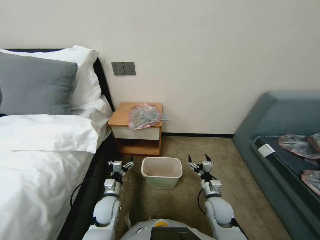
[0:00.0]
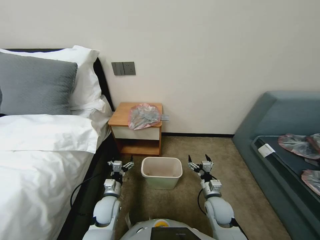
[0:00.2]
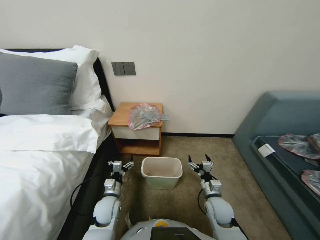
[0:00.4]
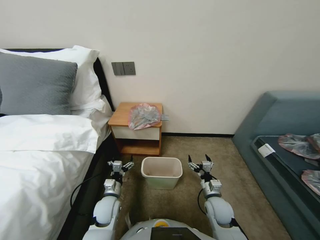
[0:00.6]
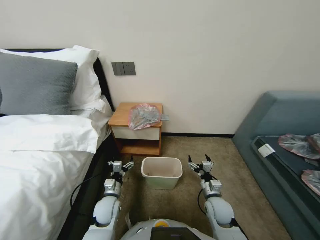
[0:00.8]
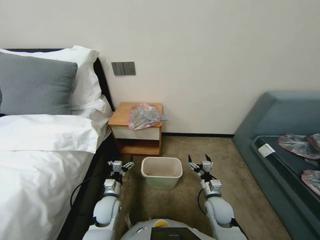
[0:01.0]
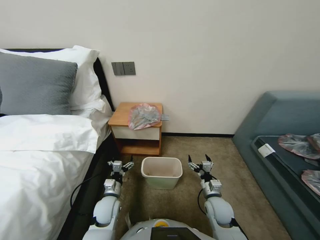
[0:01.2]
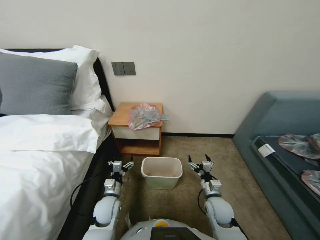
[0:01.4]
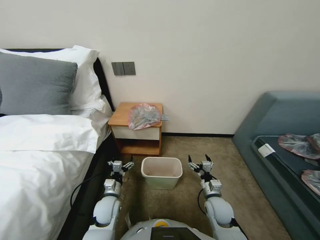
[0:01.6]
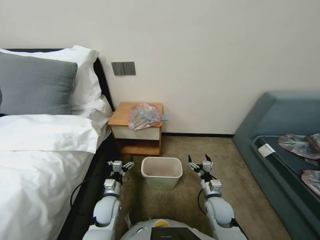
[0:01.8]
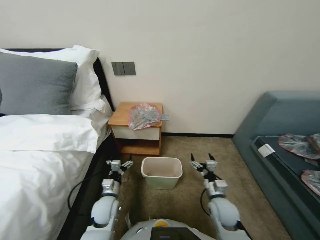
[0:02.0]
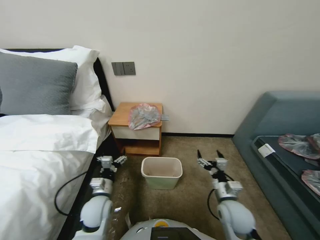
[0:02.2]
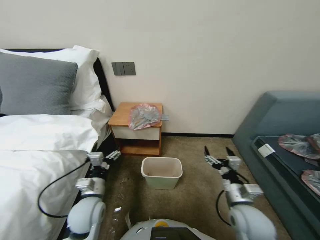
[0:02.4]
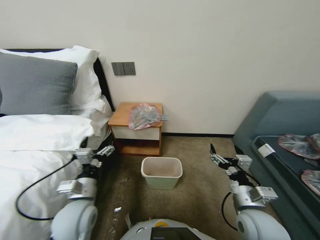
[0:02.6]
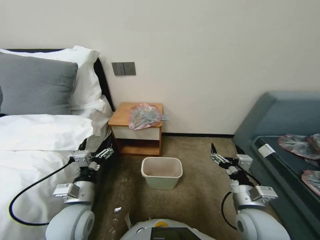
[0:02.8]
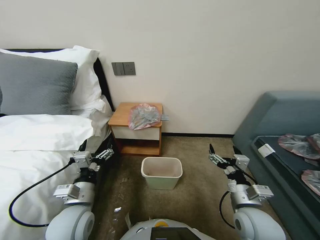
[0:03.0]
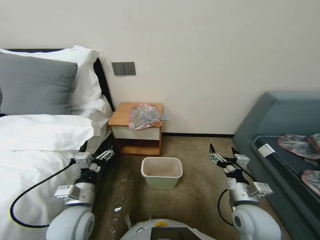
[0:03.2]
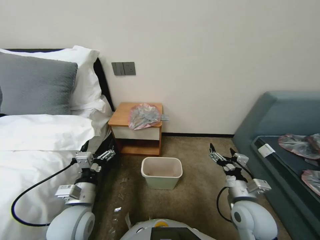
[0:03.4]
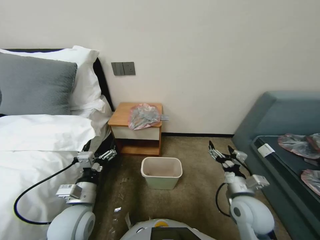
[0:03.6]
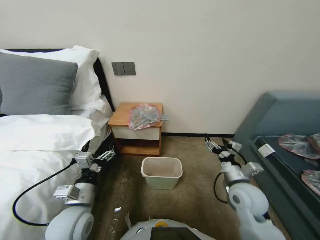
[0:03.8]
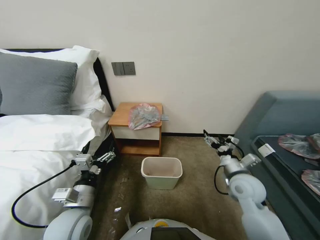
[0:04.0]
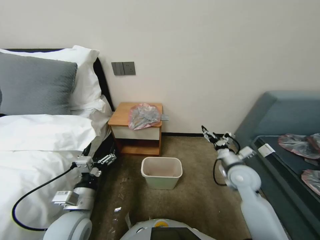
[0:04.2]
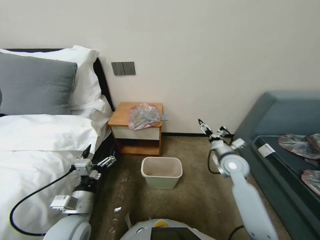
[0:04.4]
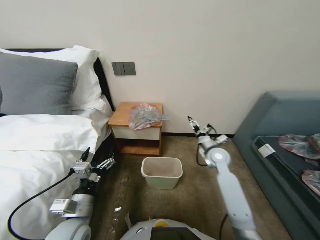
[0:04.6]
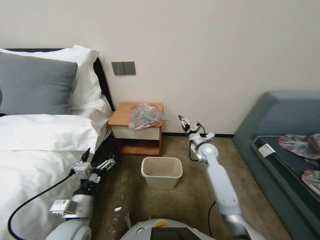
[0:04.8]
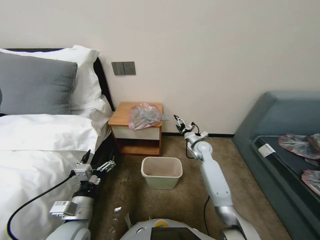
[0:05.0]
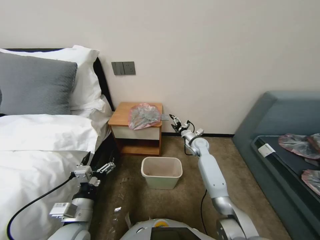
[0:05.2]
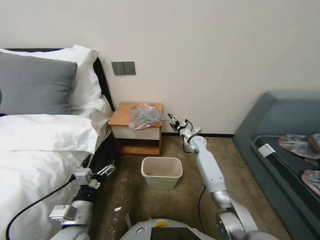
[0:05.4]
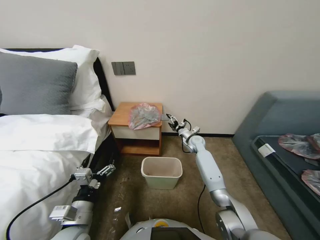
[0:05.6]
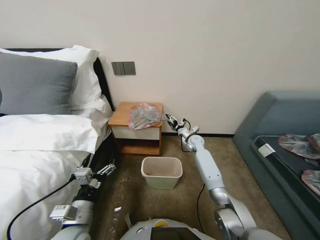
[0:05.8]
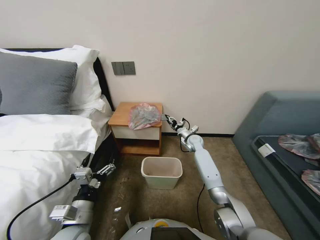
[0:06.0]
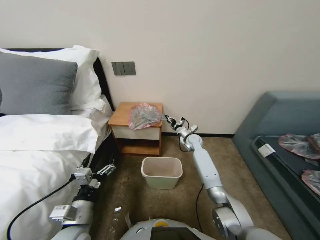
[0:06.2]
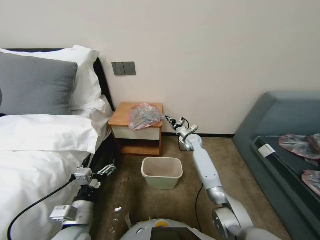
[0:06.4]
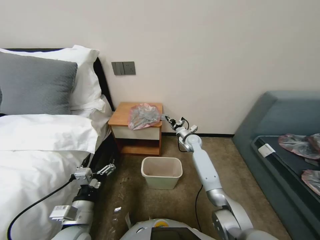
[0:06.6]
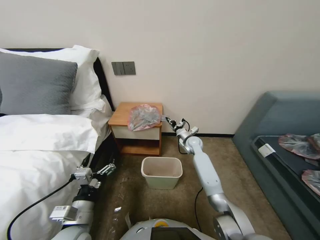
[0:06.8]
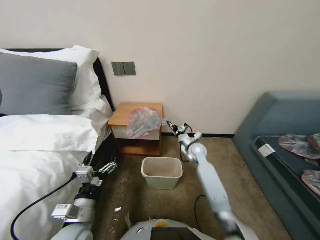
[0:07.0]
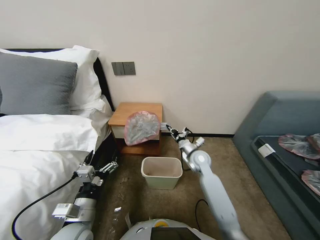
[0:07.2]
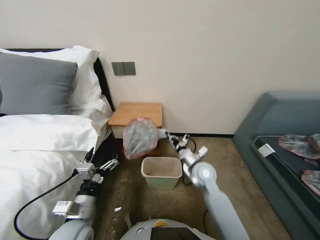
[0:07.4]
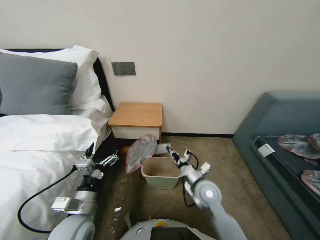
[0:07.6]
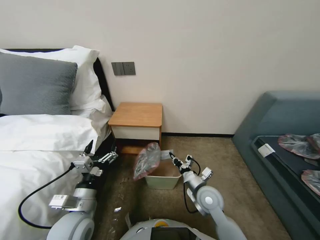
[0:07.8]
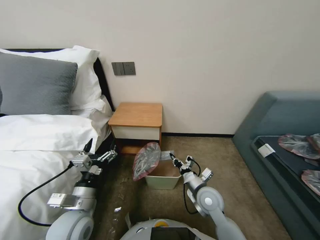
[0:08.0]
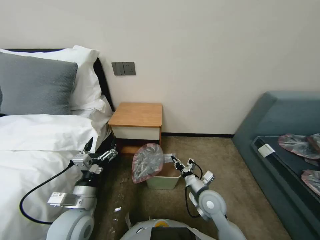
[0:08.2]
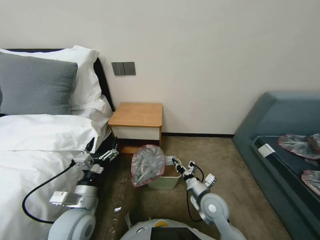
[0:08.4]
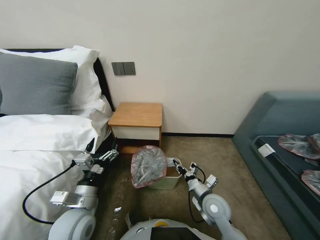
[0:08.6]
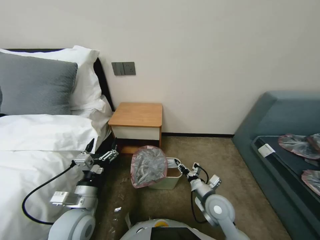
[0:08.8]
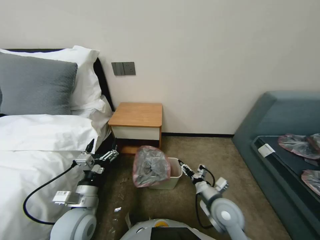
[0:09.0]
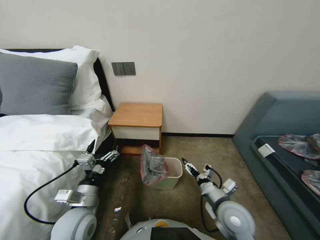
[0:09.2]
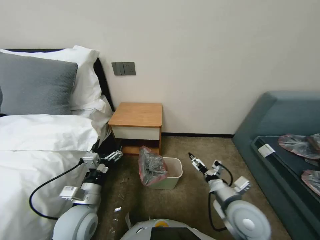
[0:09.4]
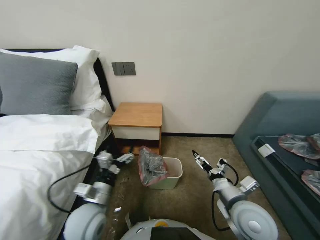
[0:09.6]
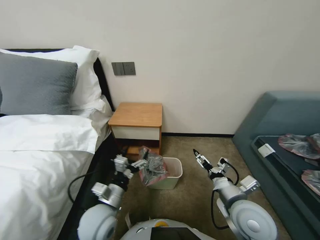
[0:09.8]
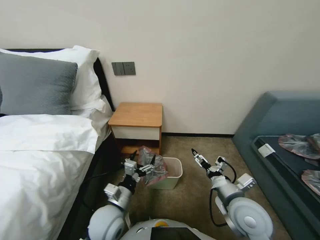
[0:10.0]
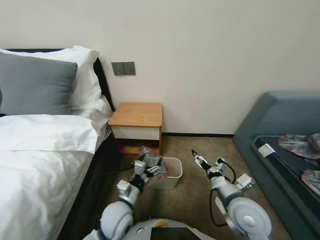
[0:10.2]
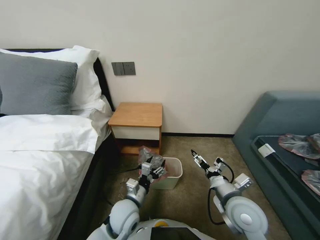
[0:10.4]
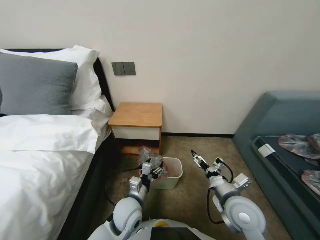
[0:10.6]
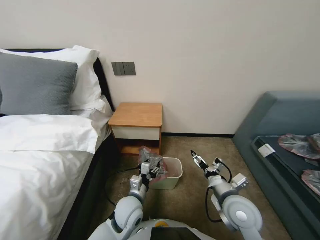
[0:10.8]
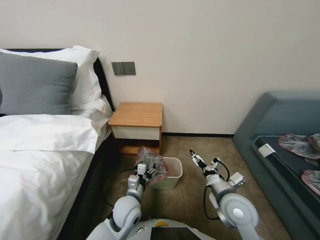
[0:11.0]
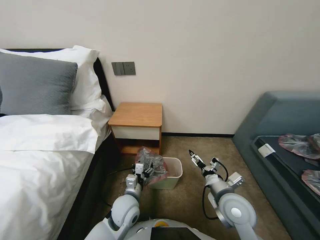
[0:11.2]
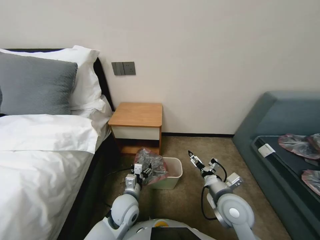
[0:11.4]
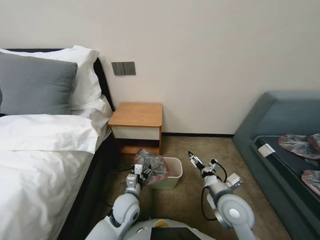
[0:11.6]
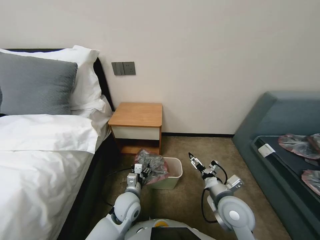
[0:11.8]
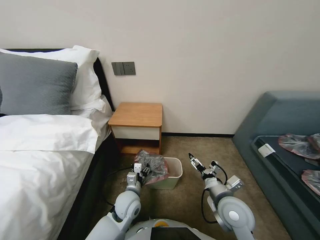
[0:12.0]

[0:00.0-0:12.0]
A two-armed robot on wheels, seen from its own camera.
Task of the whole recording: Pick up the garbage bag from the table and place it over the trash can.
0:01.6 to 0:03.0: The grippers both shift upward and backward by roughly 15 cm.
0:03.0 to 0:04.4: The right gripper moves forward, approximately 20 cm.
0:04.4 to 0:06.0: The right gripper heads forward and to the left, covering about 20 cm, and closes its fingers.
0:06.0 to 0:07.6: The right gripper heads backward, covering roughly 25 cm, and closes up.
0:07.6 to 0:09.0: The right gripper goes approximately 5 cm backward, and opens its fingers.
0:09.0 to 0:10.4: The right gripper is displaced upward by some 5 cm, and opens. Meanwhile the left gripper is displaced to the right and downward by about 15 cm.
0:10.4 to 0:12.0: The left gripper changes place by some 5 cm.

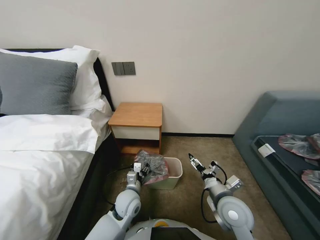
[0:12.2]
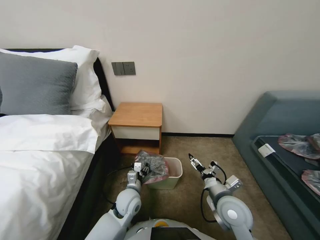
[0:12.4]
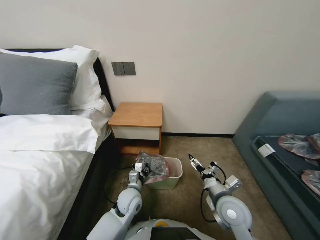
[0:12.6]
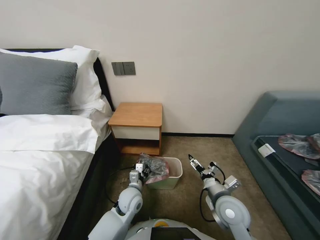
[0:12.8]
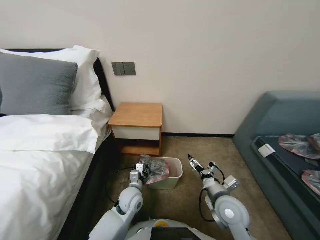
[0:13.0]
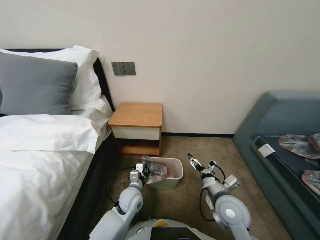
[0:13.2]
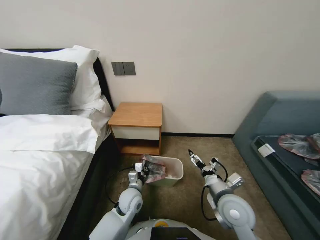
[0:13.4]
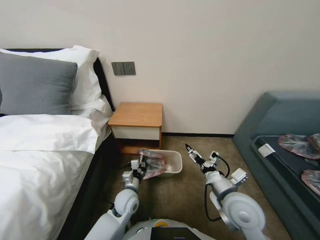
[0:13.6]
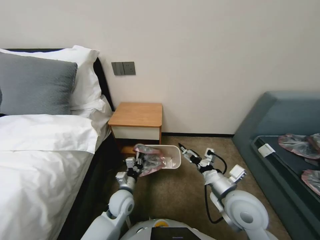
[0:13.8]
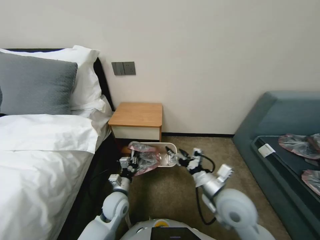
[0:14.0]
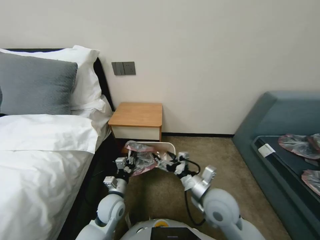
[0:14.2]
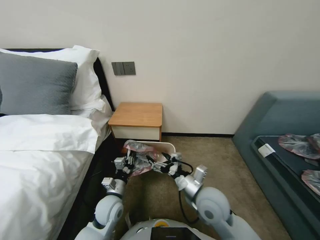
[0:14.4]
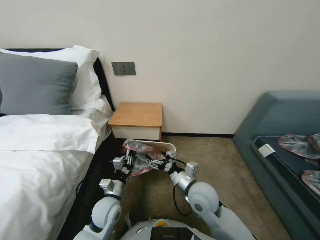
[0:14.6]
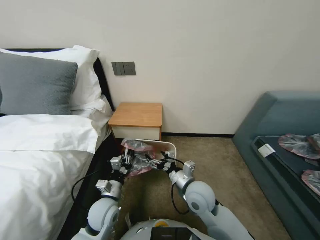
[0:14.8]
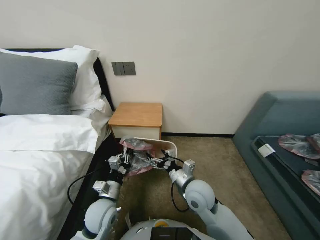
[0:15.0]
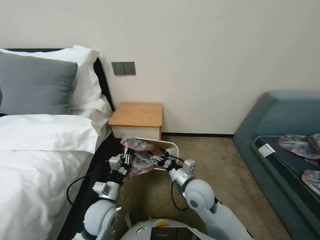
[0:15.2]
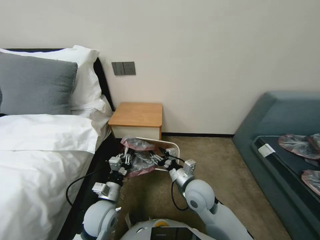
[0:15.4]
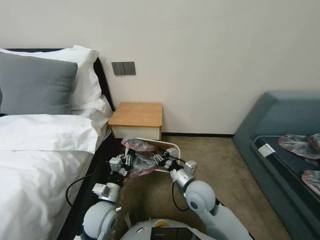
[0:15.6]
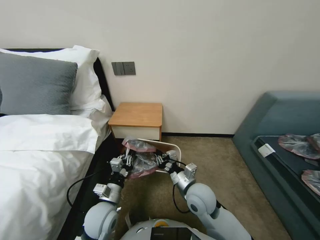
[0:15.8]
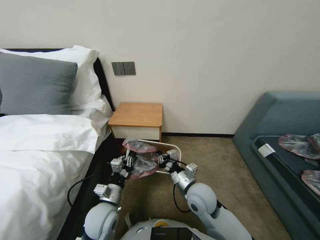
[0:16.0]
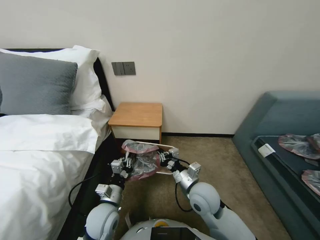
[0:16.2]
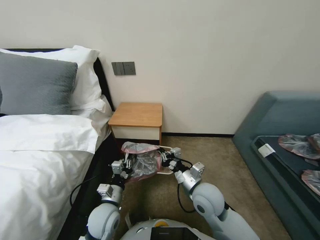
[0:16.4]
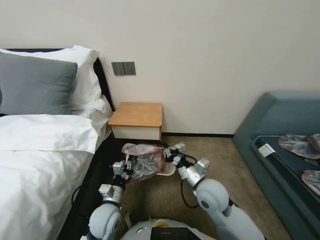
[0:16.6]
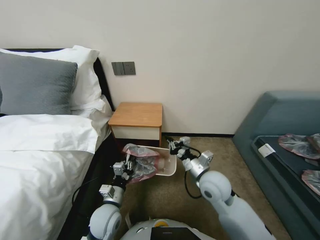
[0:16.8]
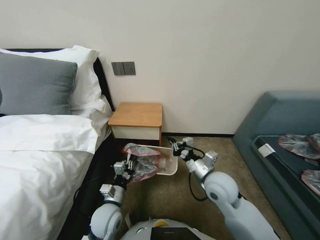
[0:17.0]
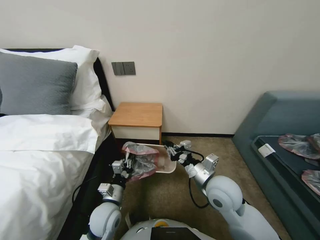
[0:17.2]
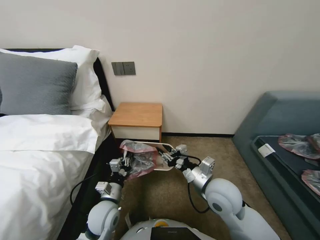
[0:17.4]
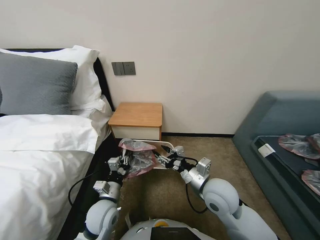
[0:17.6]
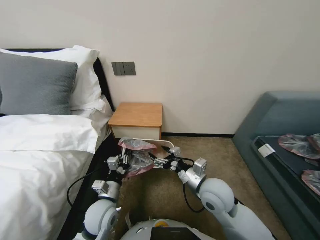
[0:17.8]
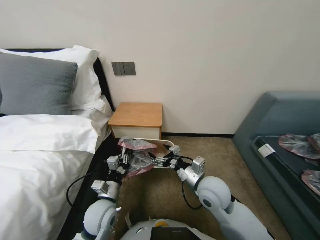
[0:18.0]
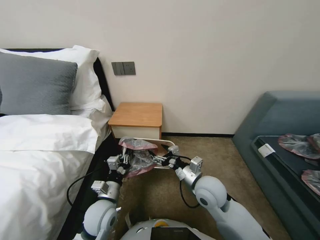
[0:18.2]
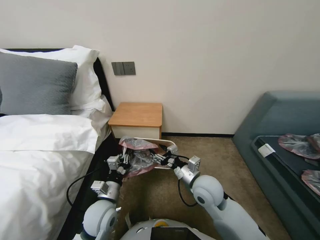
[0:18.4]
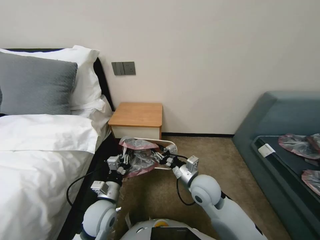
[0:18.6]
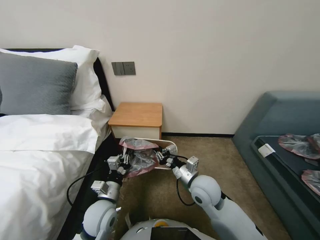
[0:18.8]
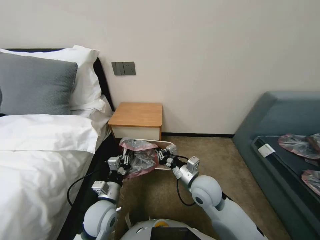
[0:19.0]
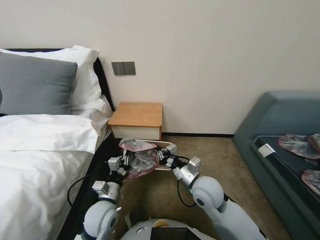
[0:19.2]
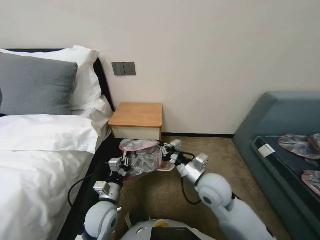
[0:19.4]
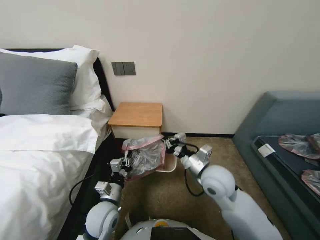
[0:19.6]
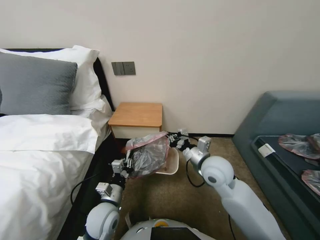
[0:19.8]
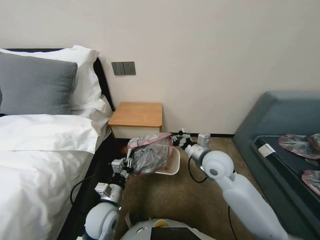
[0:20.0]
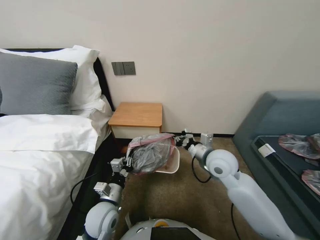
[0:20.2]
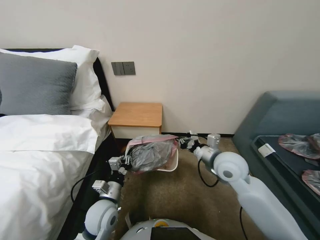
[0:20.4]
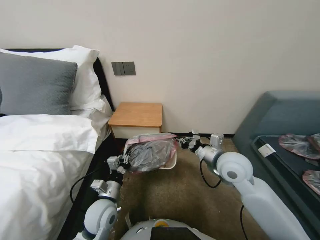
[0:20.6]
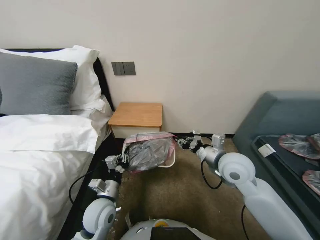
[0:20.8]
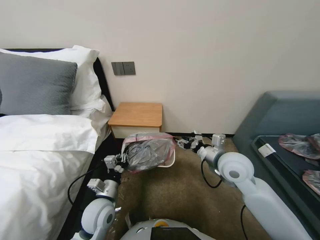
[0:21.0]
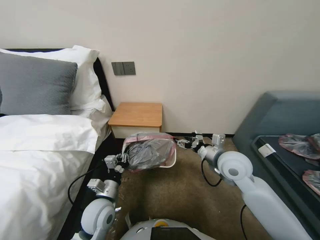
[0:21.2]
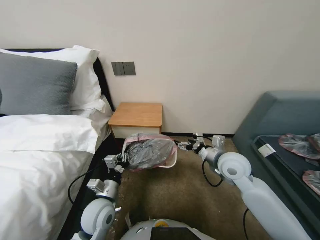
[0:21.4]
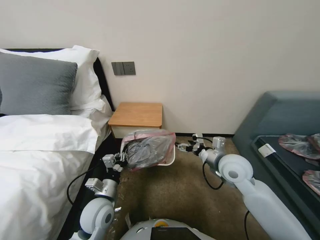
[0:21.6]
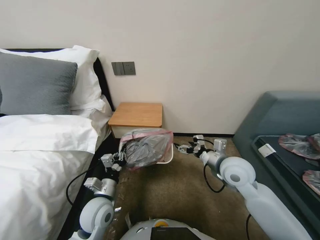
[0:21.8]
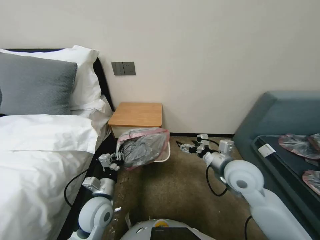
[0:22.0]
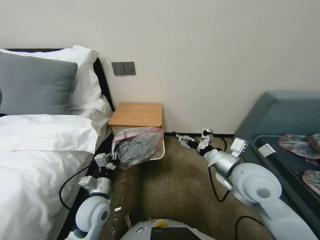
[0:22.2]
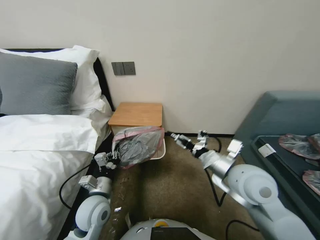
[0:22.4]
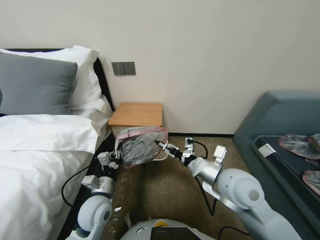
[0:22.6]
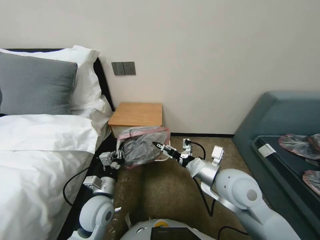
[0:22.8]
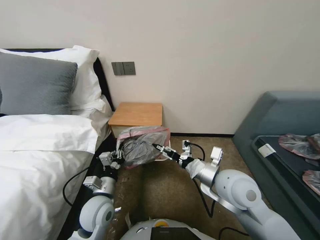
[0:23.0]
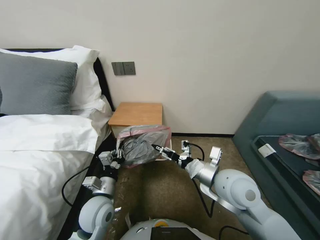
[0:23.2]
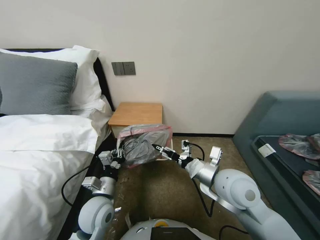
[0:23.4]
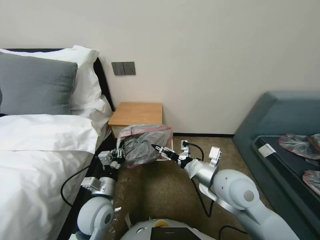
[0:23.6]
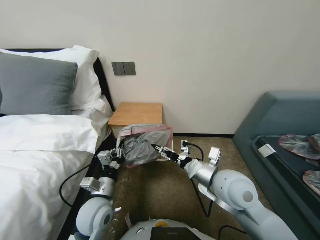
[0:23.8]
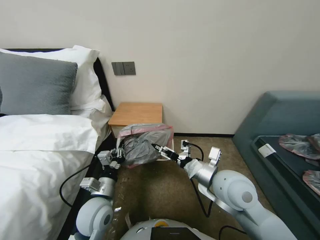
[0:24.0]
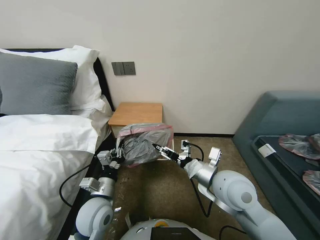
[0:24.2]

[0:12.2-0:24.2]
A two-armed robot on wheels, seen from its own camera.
Task of the whole recording: Pick up the garbage bag from the table and place it over the trash can.
0:12.2 to 0:13.8: The left gripper closes its fingers. Meanwhile the right gripper is displaced upward by roughly 5 cm.
0:13.8 to 0:15.2: The left gripper shifts roughly 10 cm upward, to the left and backward; the right gripper shifts some 10 cm to the left and forward.
0:15.2 to 0:16.6: The right gripper closes.
0:16.6 to 0:18.2: The right gripper opens up.
0:18.2 to 0:19.8: The right gripper changes place by approximately 5 cm, and closes up.
0:19.8 to 0:21.2: The right gripper is displaced to the right by about 5 cm, and opens up.
0:21.2 to 0:22.6: The right gripper heads backward, covering about 5 cm, and opens.
0:22.6 to 0:24.2: The grippers move only a little.
